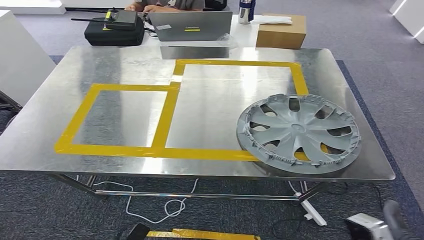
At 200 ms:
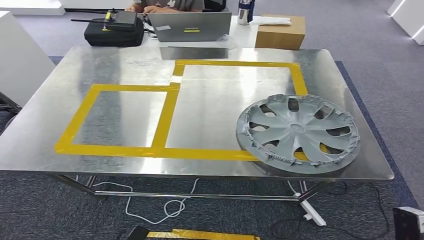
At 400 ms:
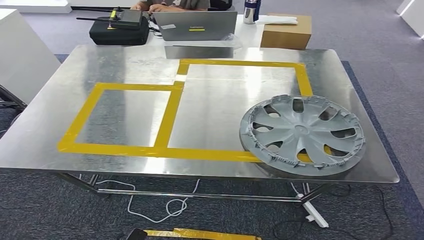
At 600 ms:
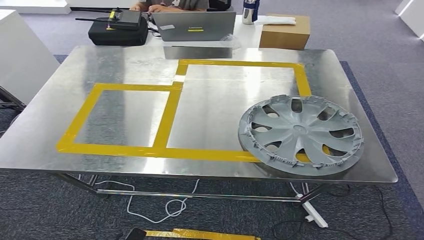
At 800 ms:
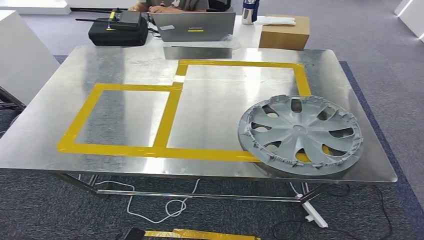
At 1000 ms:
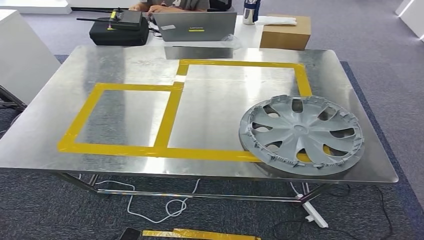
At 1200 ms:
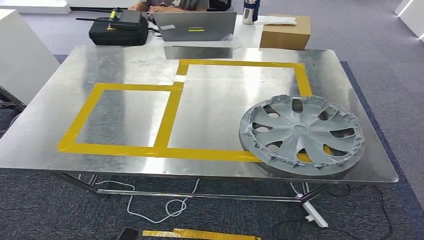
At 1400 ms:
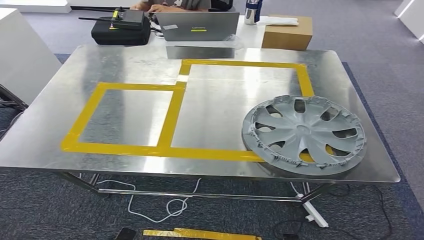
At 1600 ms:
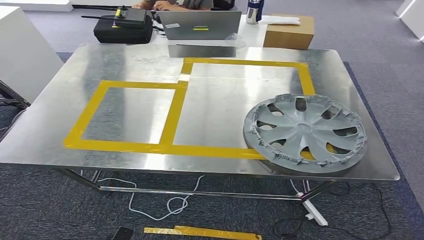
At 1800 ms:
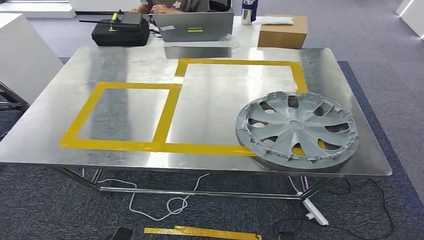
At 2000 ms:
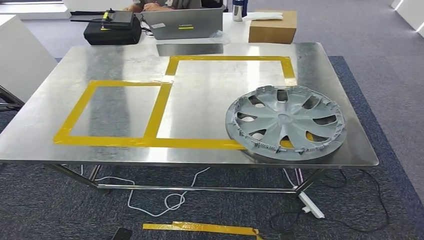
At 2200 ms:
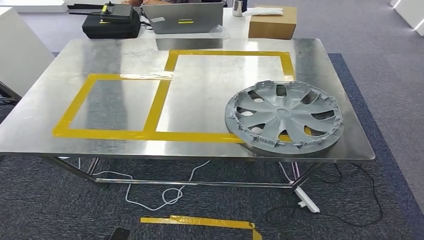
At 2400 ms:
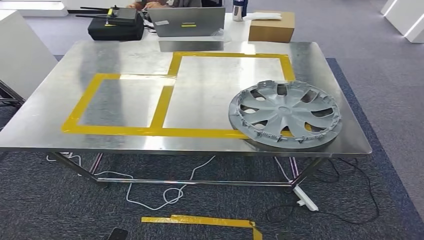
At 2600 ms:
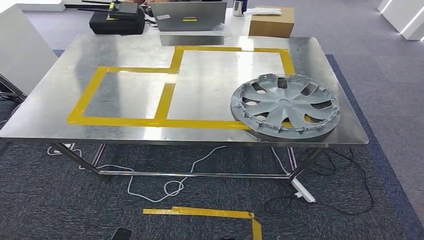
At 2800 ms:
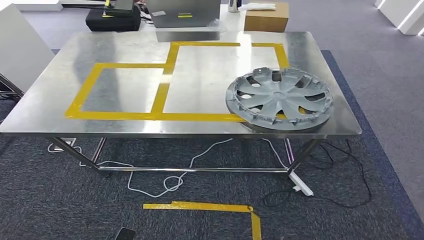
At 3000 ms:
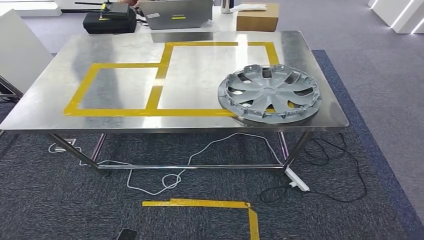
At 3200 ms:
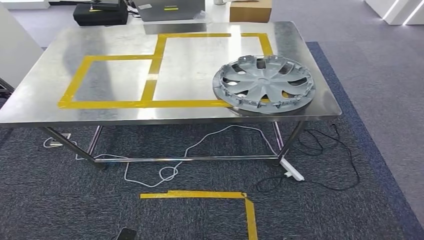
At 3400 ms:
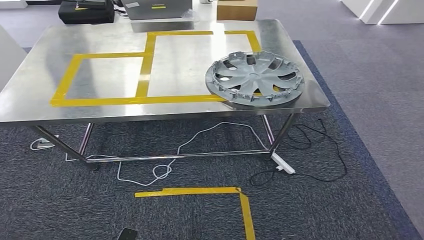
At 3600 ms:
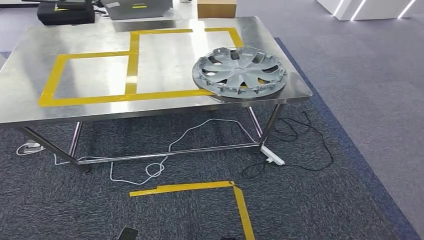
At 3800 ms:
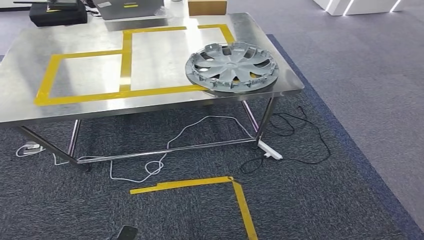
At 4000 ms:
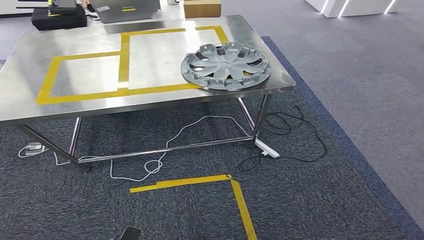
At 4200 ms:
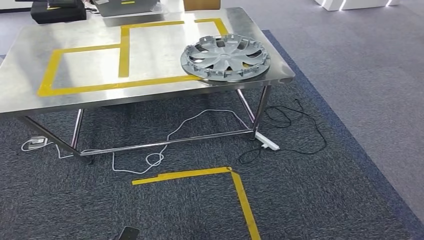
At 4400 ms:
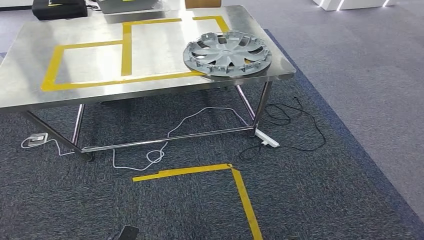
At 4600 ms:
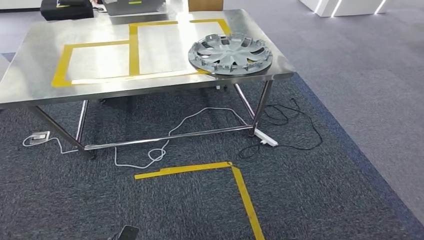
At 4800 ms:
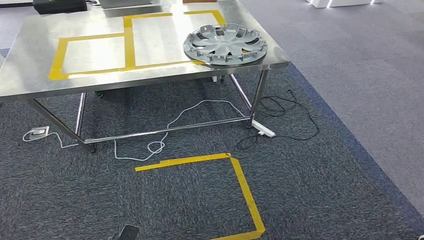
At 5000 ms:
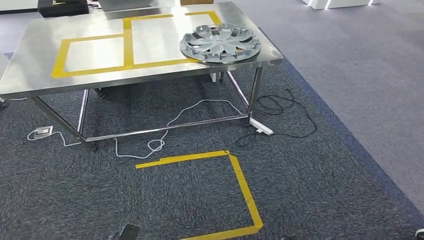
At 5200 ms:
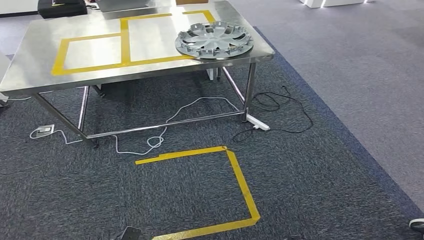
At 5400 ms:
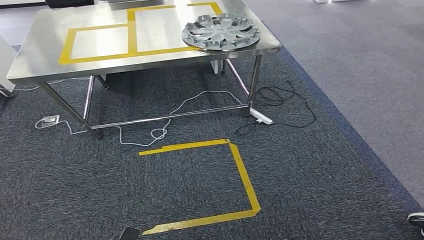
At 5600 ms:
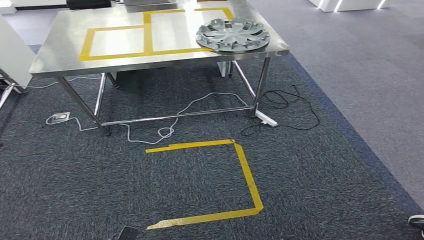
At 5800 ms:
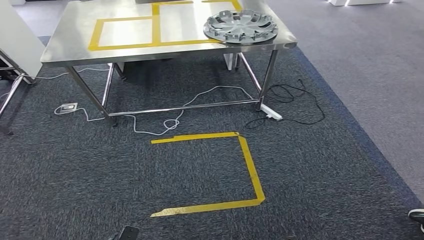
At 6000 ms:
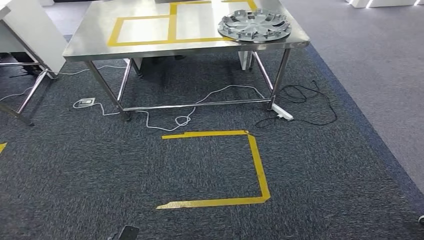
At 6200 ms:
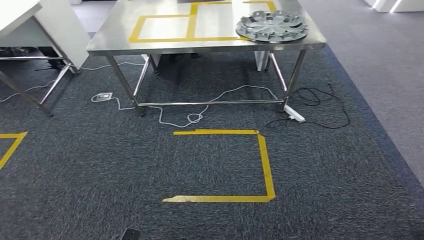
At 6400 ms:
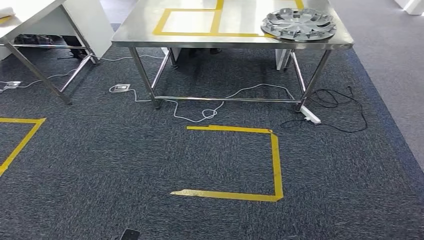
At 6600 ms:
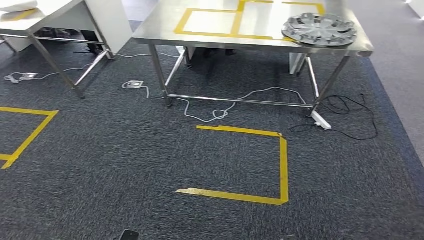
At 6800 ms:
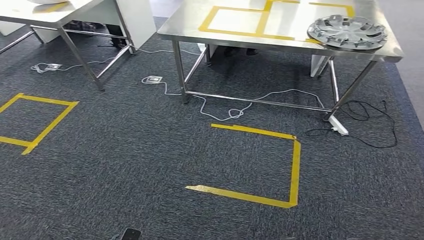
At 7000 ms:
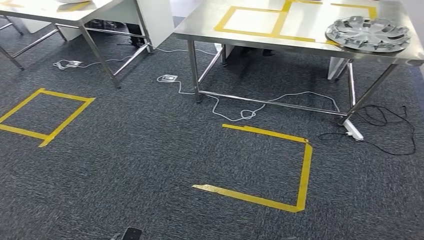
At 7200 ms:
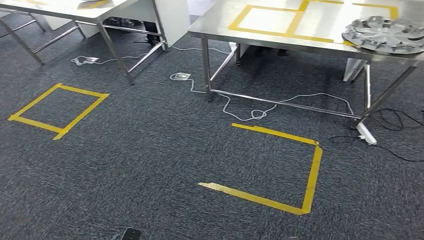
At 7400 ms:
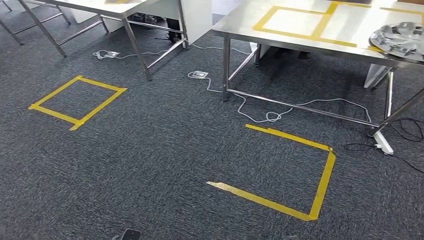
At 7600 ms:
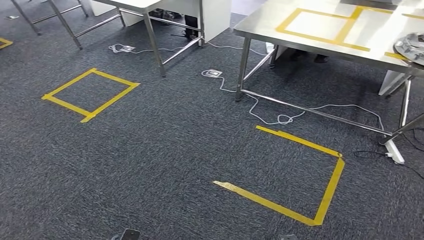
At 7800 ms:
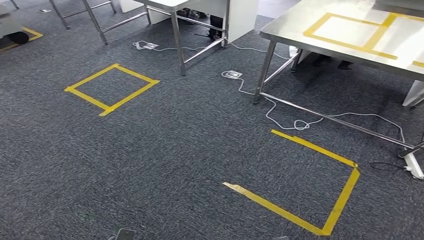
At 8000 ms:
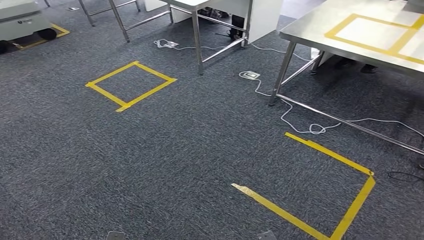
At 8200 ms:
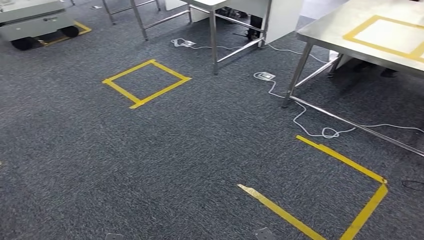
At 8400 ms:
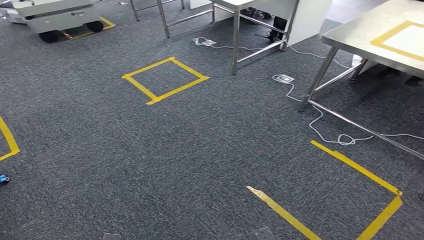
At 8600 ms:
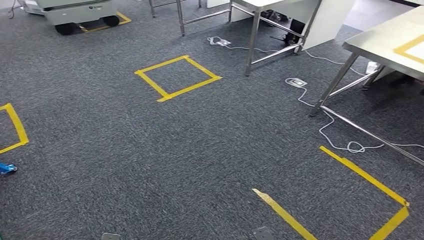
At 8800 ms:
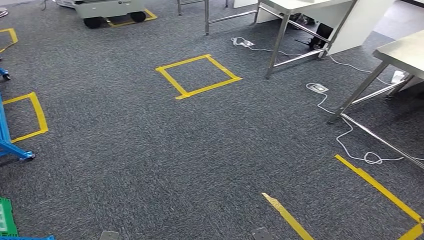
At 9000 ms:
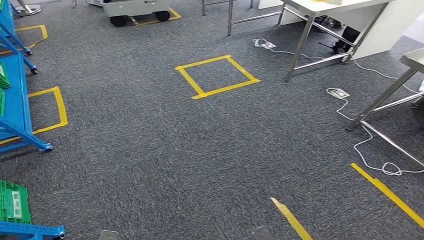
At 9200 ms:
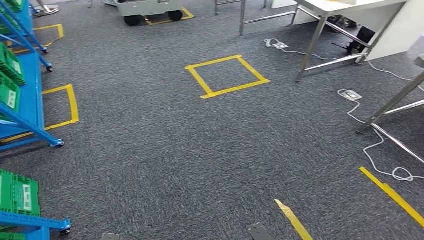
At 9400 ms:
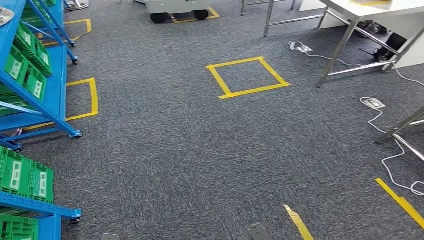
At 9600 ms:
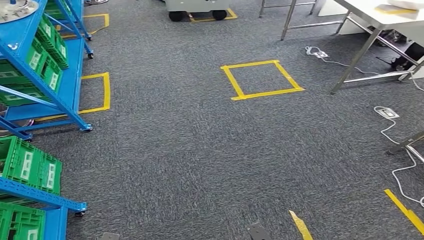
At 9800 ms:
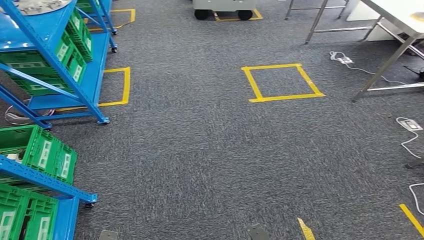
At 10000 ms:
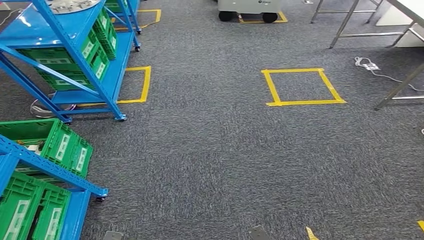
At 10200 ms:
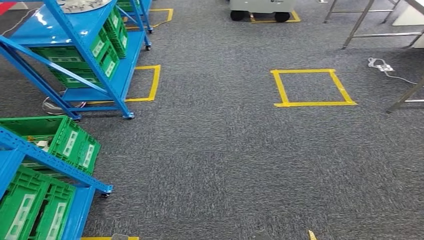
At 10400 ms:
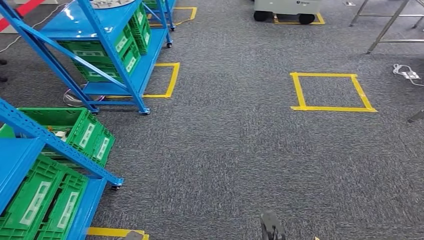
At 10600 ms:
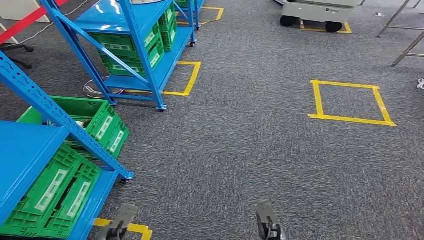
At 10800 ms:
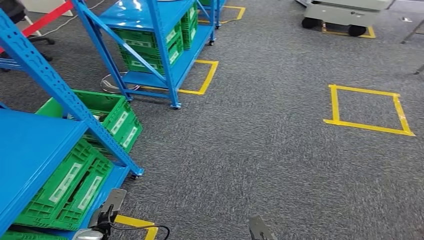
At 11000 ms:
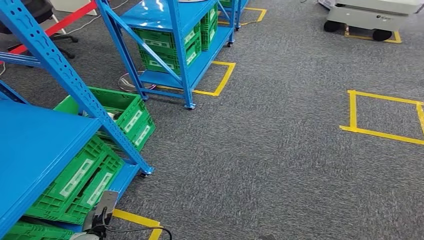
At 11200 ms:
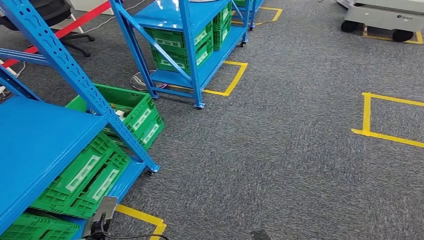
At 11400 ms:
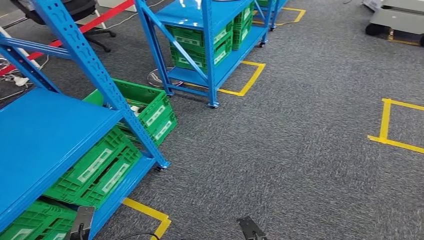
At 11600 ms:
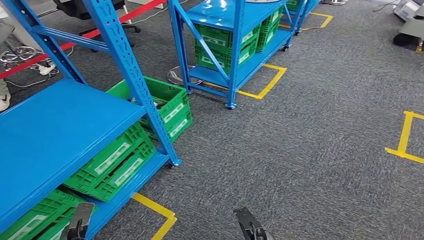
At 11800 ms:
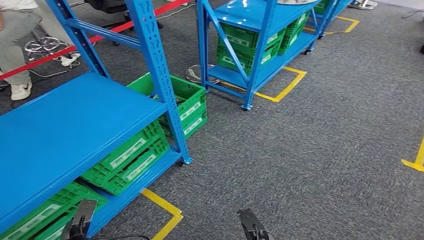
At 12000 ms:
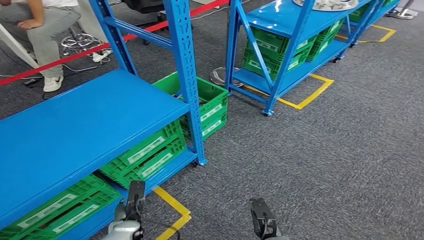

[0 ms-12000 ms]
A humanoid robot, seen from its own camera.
Step, 0 ms to 2000 ms: Insert the small component into the corresponding slot on the workbench.

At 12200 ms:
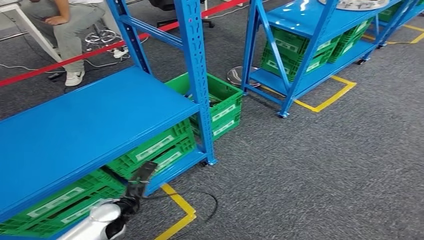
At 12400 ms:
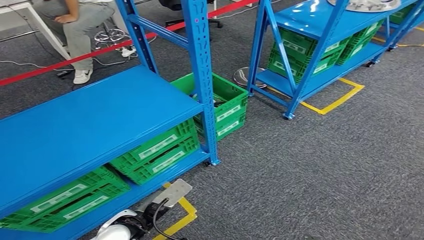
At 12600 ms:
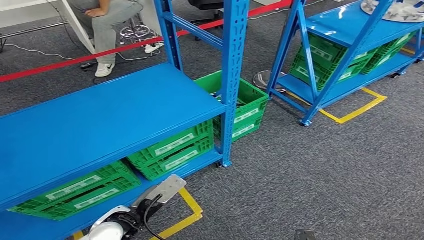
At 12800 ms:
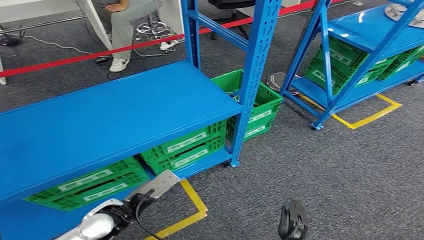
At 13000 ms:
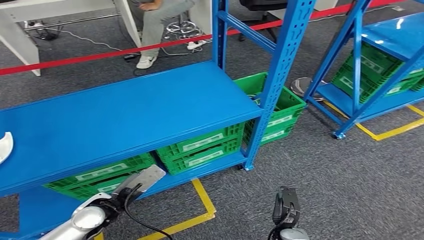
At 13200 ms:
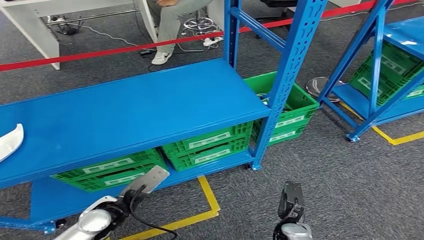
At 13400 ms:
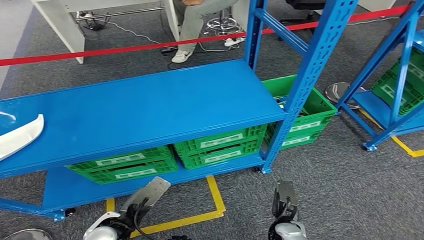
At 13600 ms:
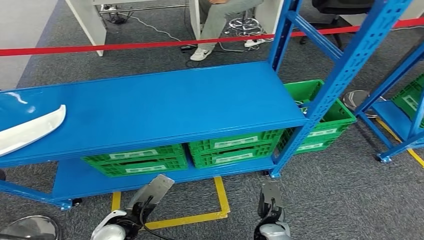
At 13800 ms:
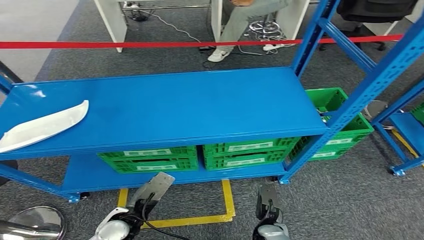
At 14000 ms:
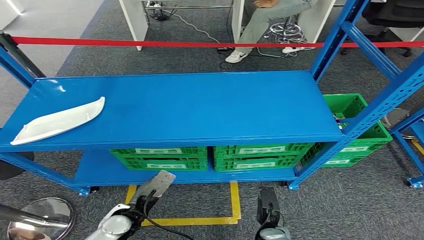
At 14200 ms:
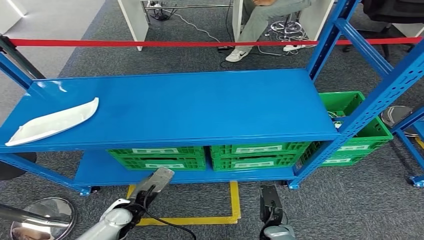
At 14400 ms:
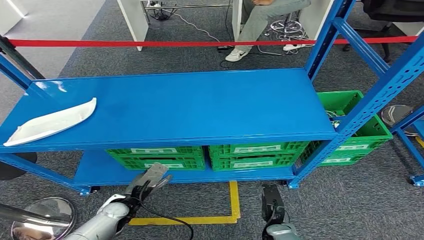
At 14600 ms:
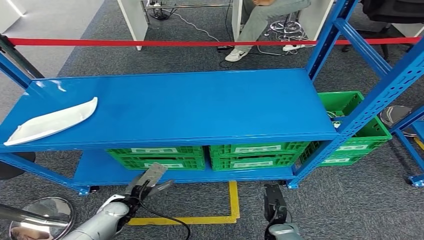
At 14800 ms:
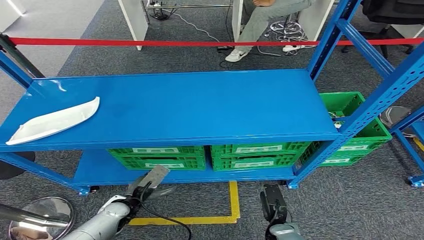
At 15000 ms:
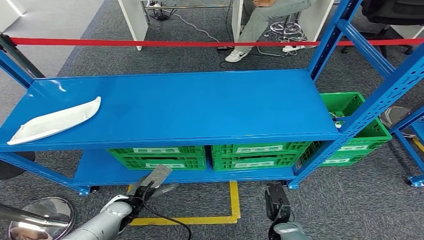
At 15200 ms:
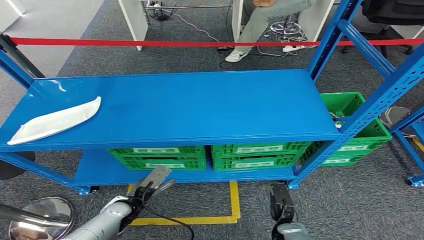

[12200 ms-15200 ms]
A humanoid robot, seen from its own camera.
Step, 12200 ms to 15200 ms: Return to the initial position at the workbench.
